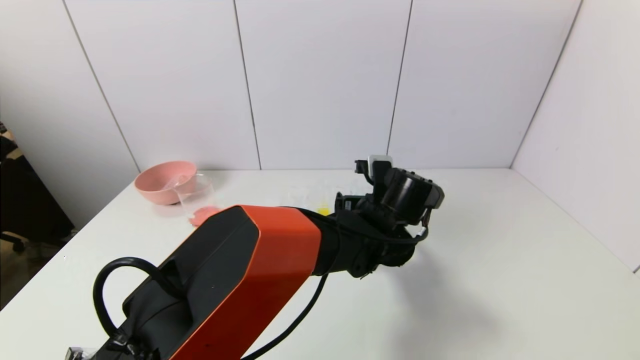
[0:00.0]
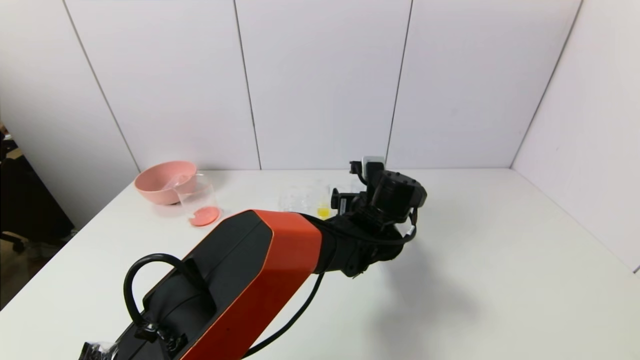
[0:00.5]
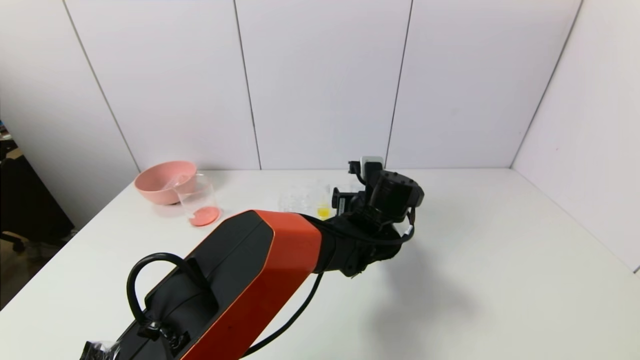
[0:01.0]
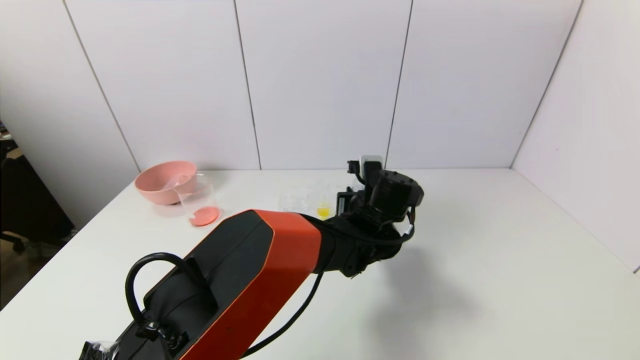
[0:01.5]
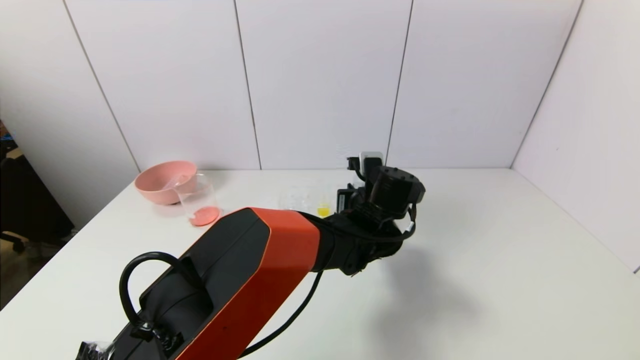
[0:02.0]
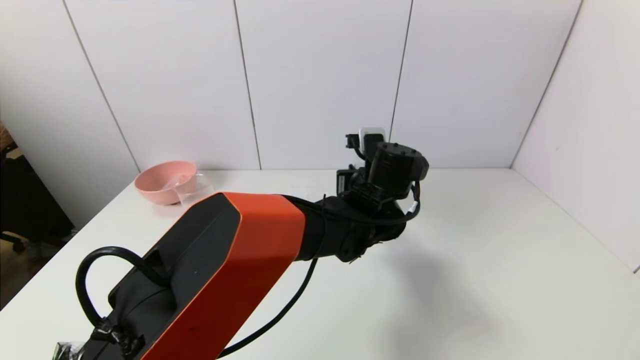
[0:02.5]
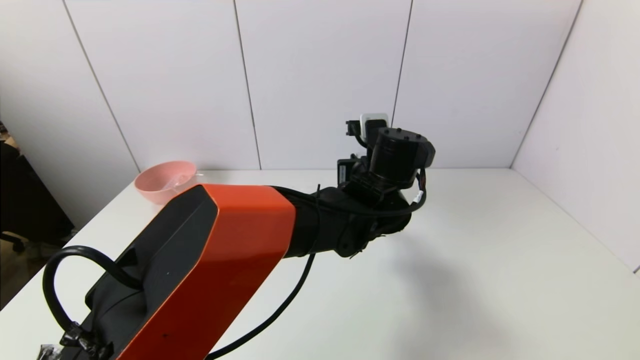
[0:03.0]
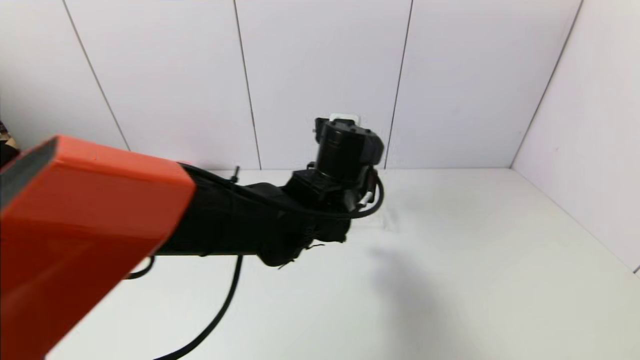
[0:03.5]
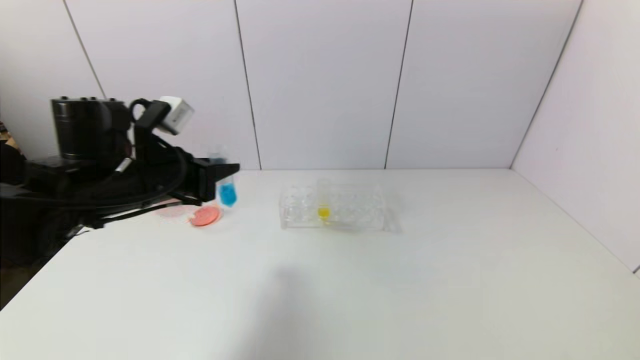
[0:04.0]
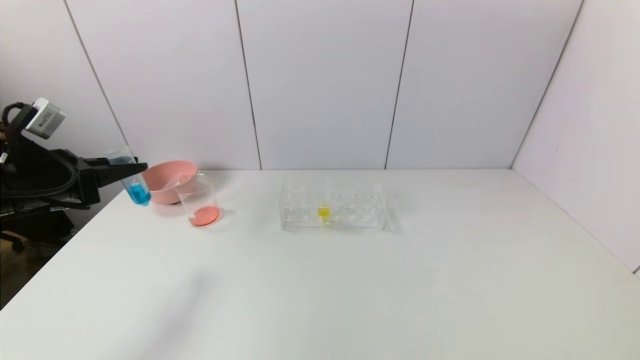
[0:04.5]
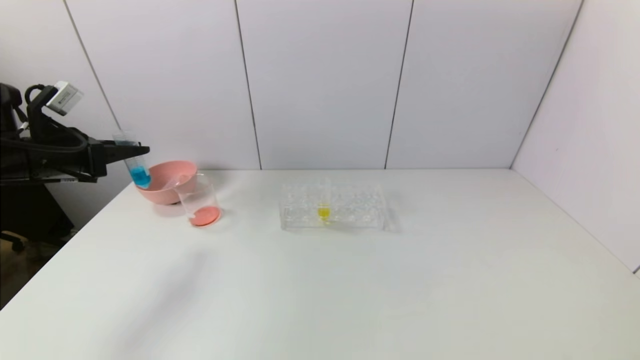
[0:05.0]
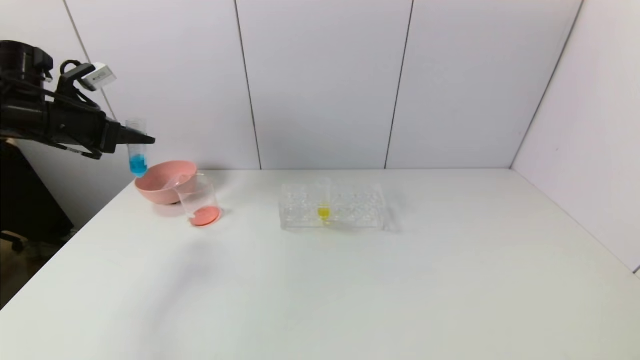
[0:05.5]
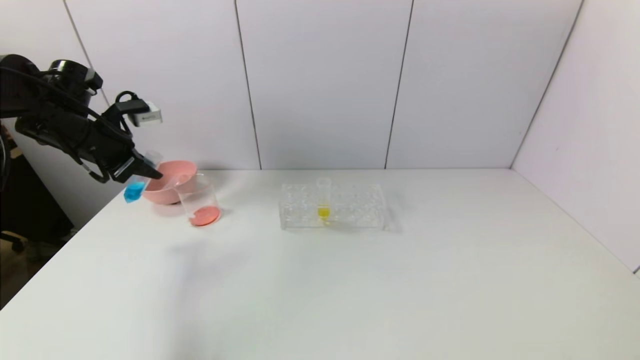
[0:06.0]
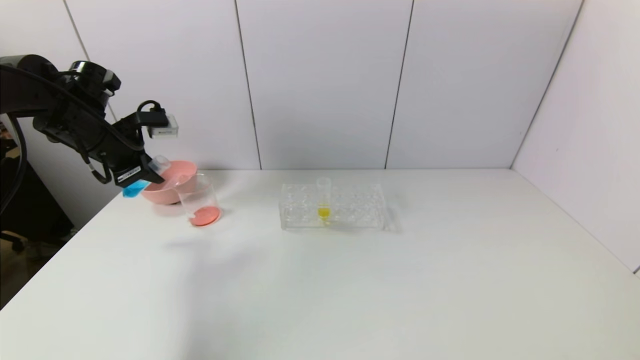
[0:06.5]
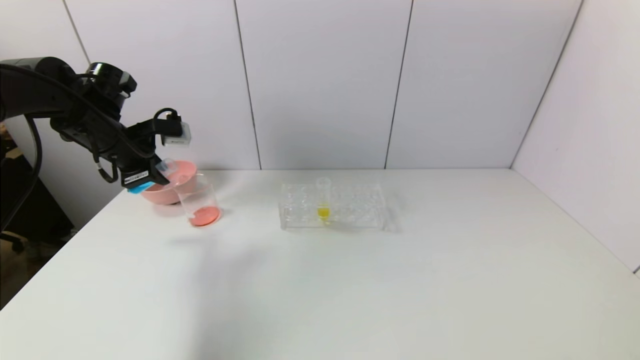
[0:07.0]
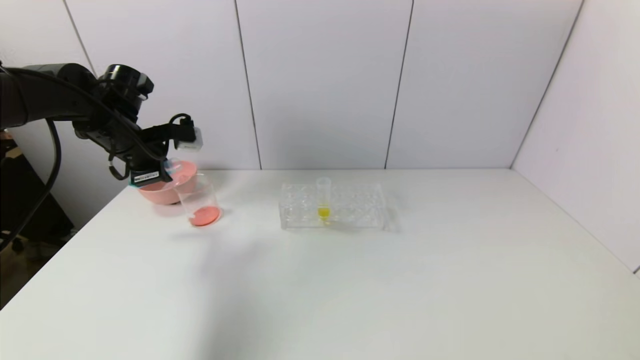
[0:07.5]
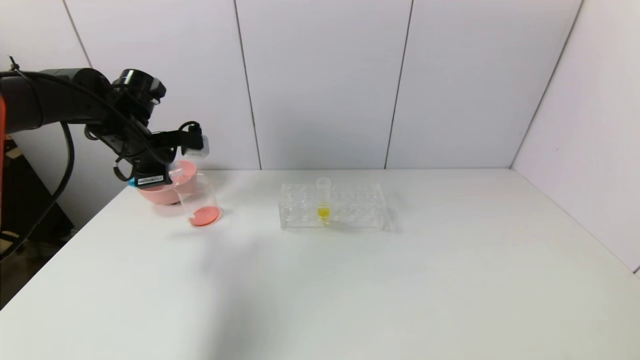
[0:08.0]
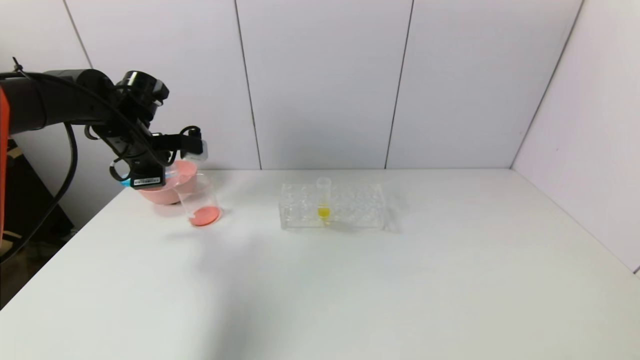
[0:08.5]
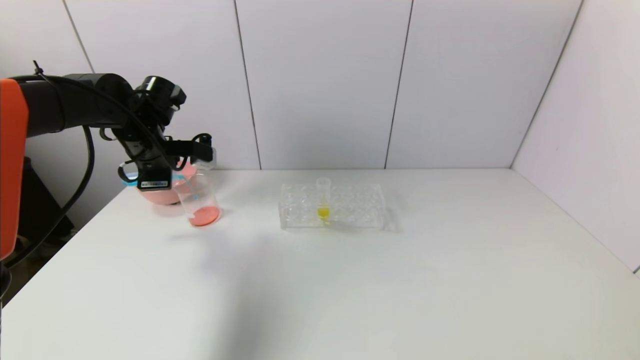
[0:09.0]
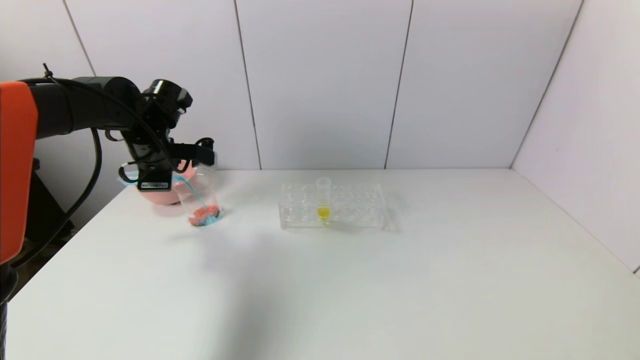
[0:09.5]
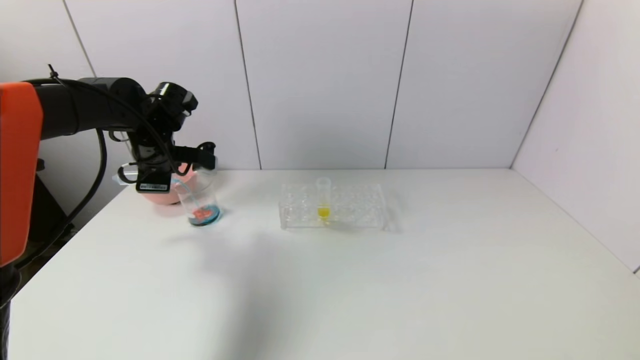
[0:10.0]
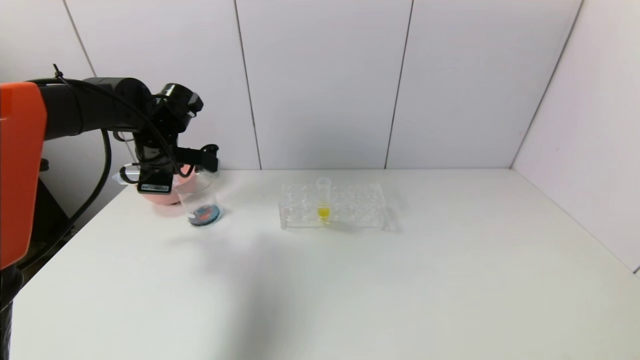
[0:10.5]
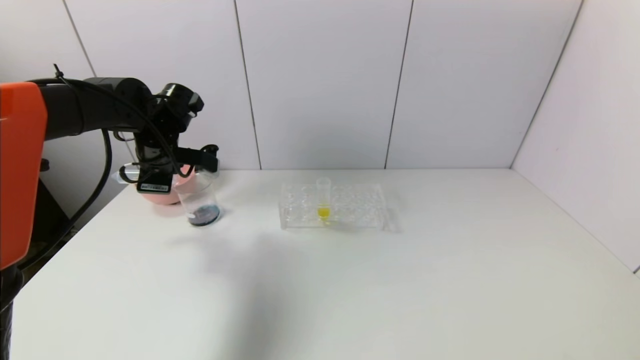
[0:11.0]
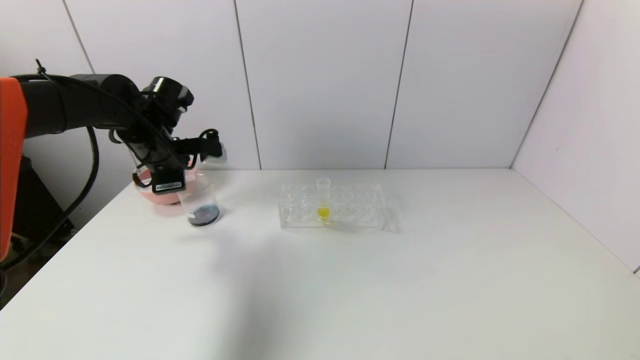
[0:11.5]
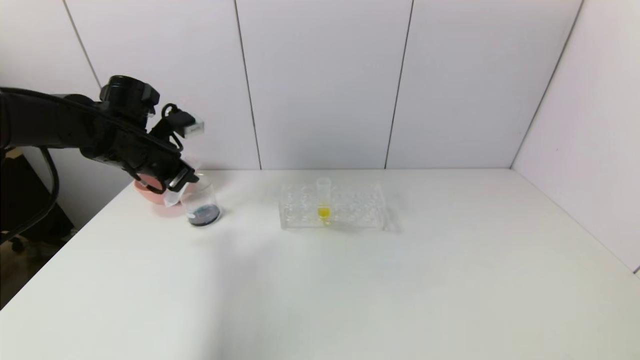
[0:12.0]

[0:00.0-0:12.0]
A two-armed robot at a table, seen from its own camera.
Task of the whole recording: pick up the test tube with red pigment and the test tube with blue pigment by grippers and pour them into the container.
Step, 0:02.0 to 0:11.5: Pour the blue reagent into the graduated cylinder with the left gripper.
0:00.0 to 0:02.0: The left gripper closes its fingers.
0:02.0 to 0:04.0: The left gripper travels to the left by about 35 cm.
0:04.0 to 0:06.0: The left gripper goes approximately 15 cm to the left and forward.
0:06.0 to 0:08.0: The left gripper heads to the right, covering about 5 cm.

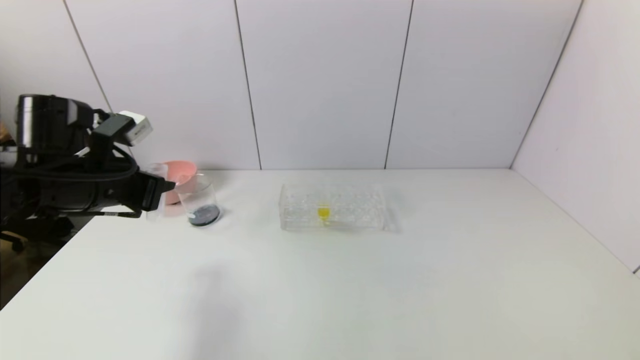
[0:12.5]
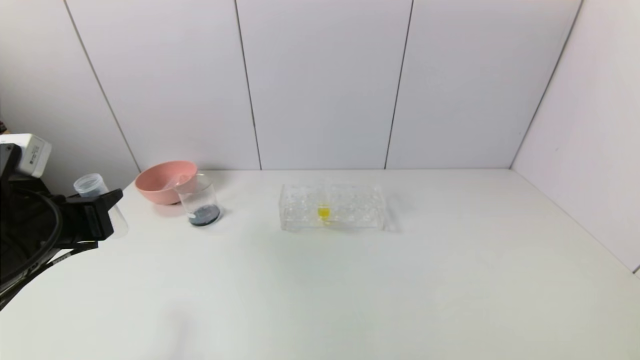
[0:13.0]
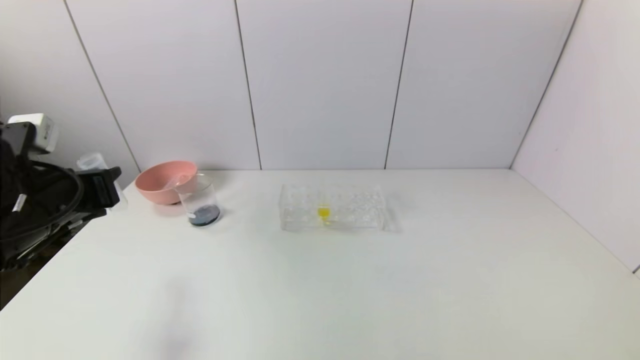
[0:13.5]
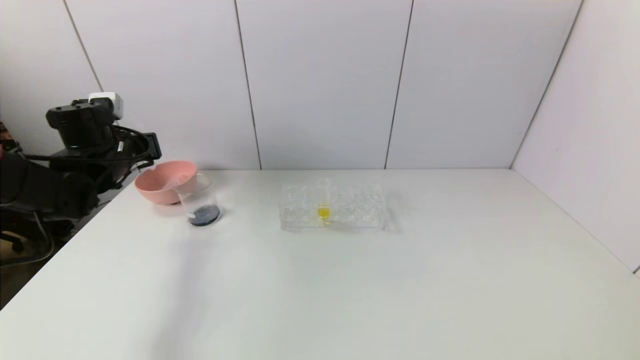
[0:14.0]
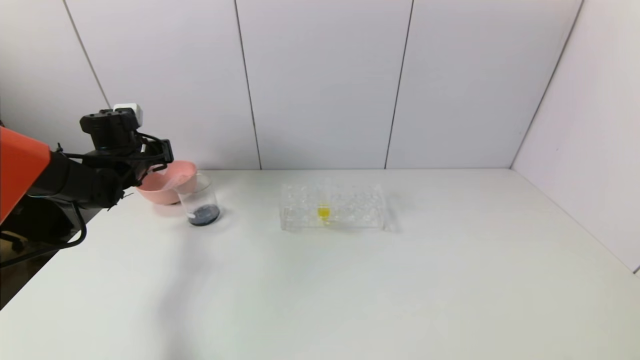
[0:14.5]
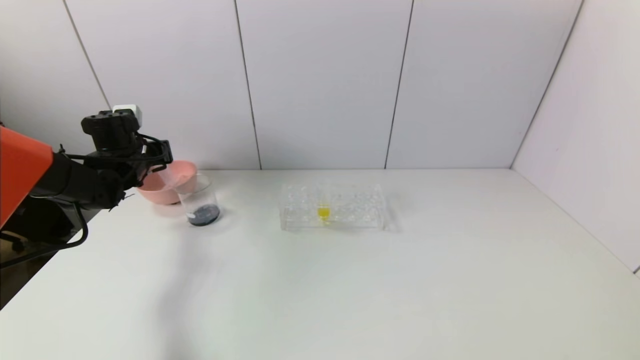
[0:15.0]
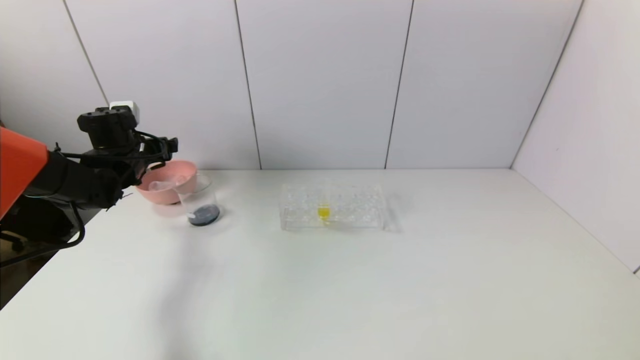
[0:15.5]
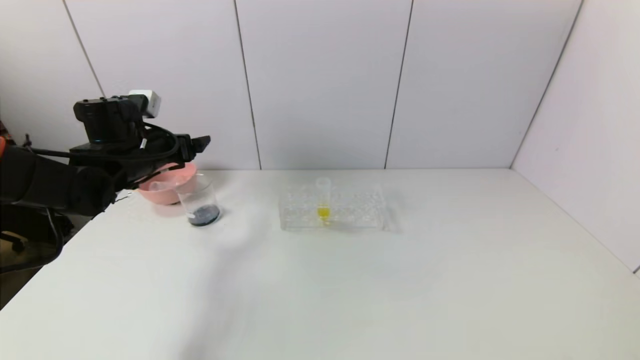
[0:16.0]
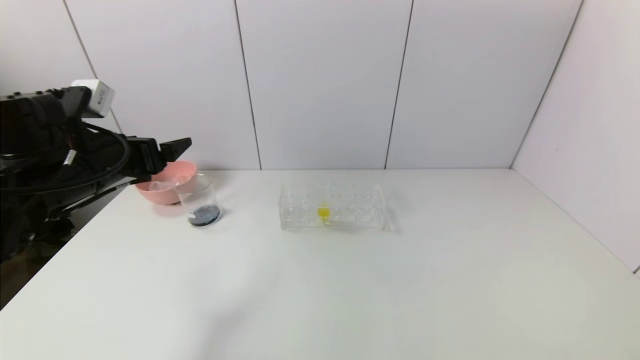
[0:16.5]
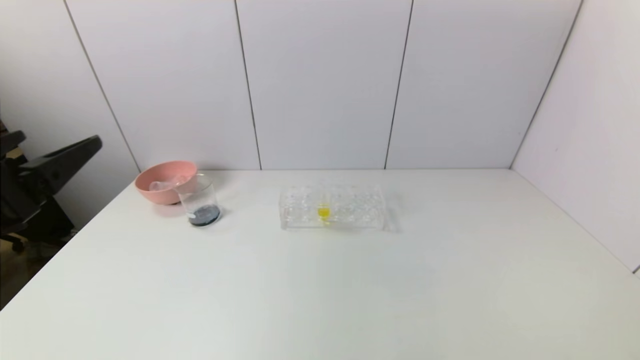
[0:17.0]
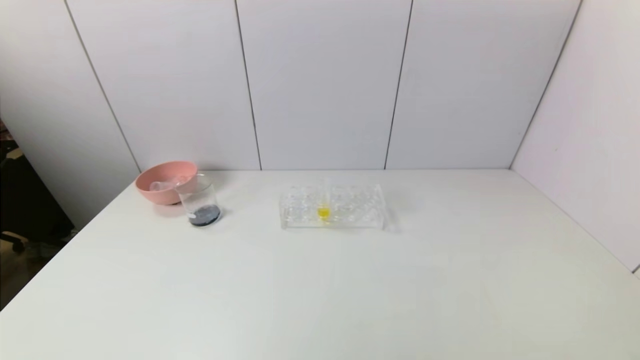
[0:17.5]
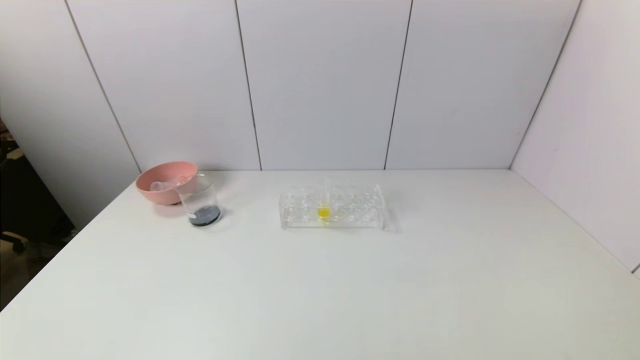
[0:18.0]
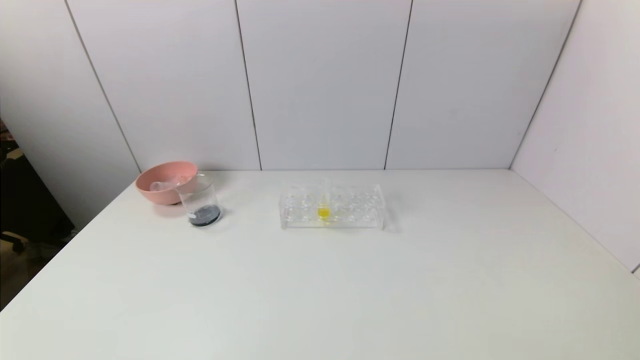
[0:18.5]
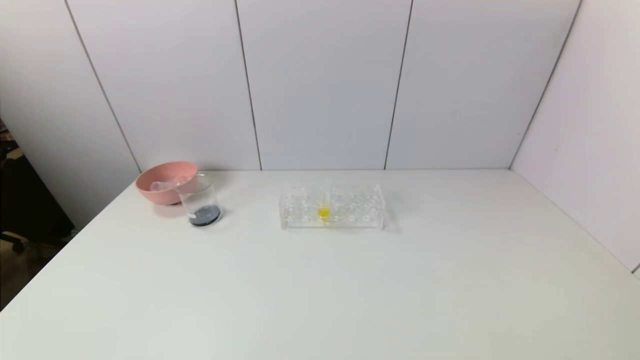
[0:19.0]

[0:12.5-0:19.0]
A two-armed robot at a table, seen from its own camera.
Task of the whole recording: pick up the test tube with red pigment and the test tube with blue pigment by grippers and pour them into the container.
Step, 0:12.5 to 0:15.0: Place the test tube into the bowl with the left gripper.
0:12.5 to 0:14.5: The left gripper is displaced forward by about 15 cm.
0:14.5 to 0:17.0: The left gripper goes some 30 cm backward, and opens its fingers.
0:17.0 to 0:19.0: The left gripper moves downward and backward, roughly 25 cm.

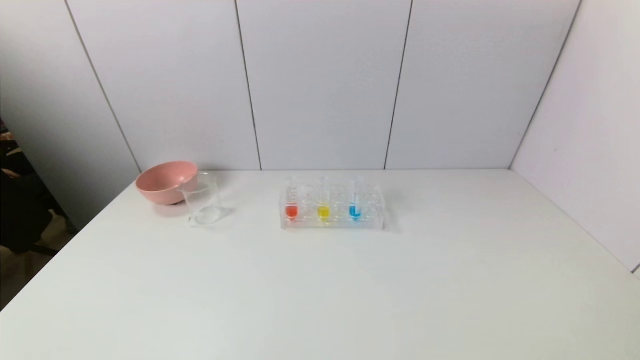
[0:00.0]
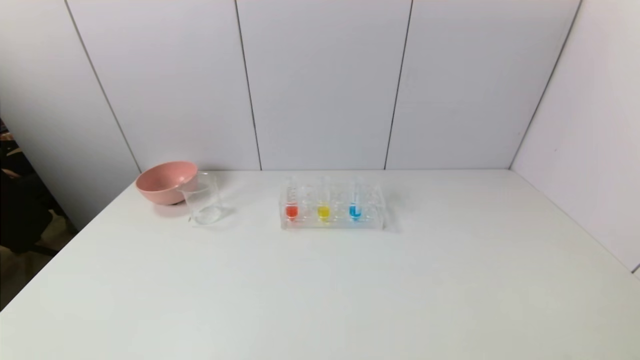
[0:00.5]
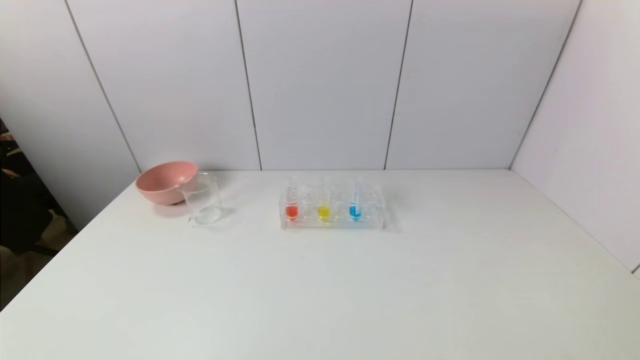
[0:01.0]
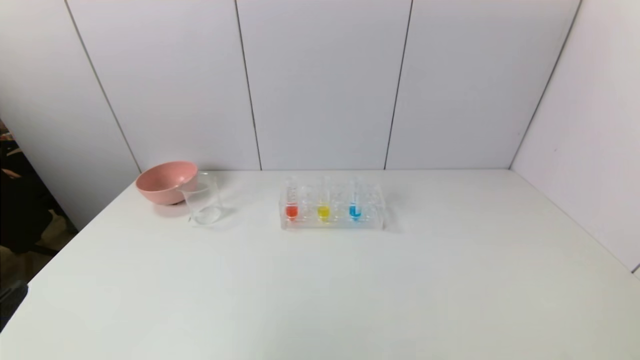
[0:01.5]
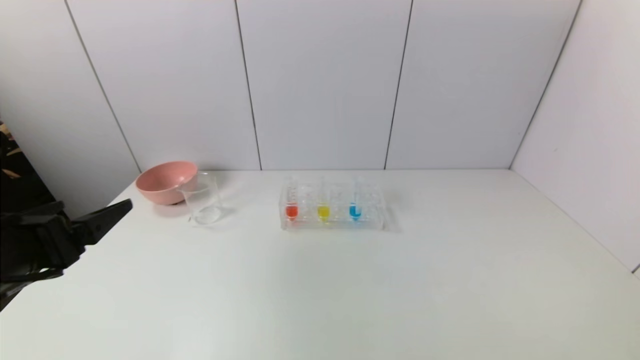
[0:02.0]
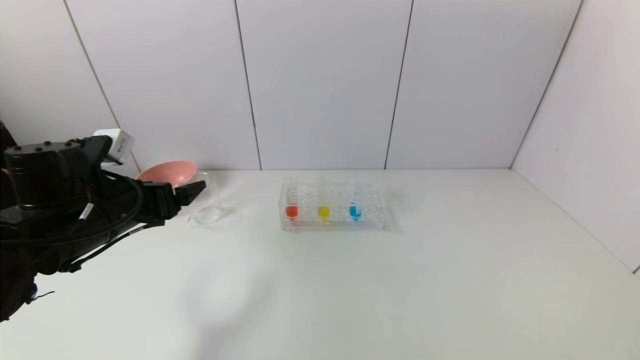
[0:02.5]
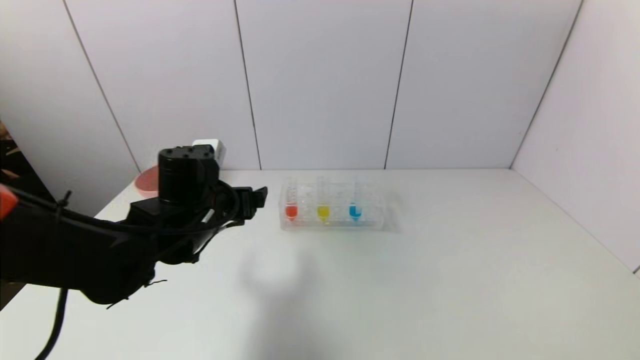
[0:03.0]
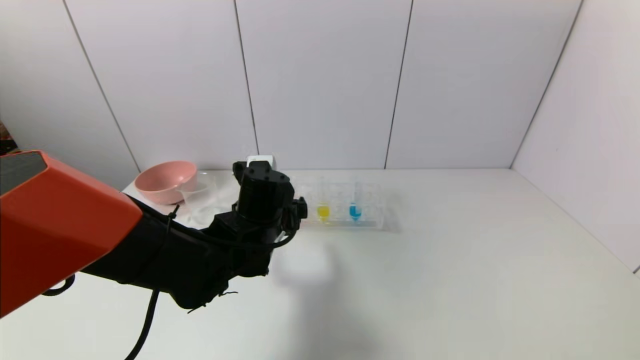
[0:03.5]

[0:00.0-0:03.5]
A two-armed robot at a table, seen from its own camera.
Task of the whole recording: pick up the test tube with red pigment and the test tube with blue pigment by grippers and pour them into the container.
0:00.0 to 0:02.0: The left gripper moves forward and upward, some 20 cm.
0:02.0 to 0:03.5: The left gripper moves to the right and forward, about 25 cm.
